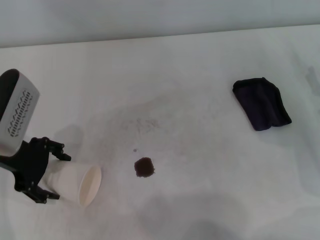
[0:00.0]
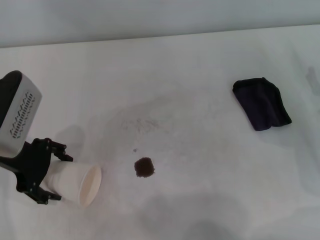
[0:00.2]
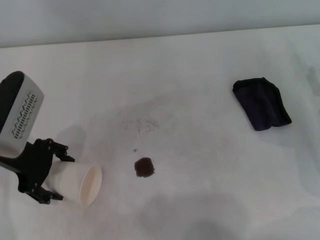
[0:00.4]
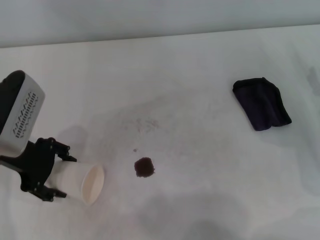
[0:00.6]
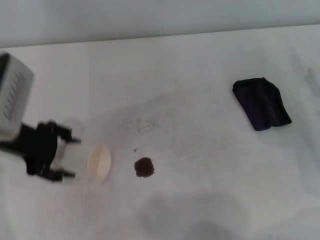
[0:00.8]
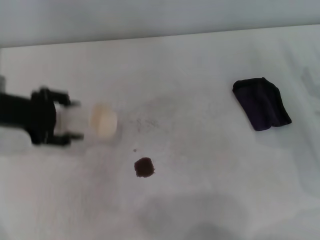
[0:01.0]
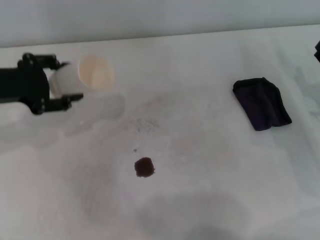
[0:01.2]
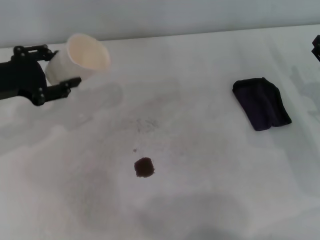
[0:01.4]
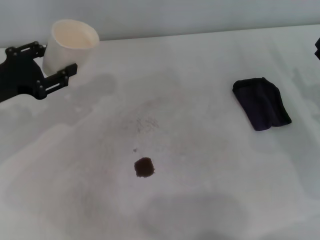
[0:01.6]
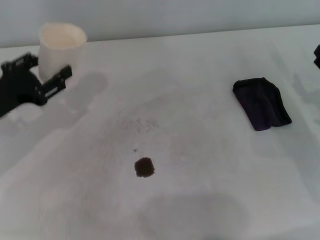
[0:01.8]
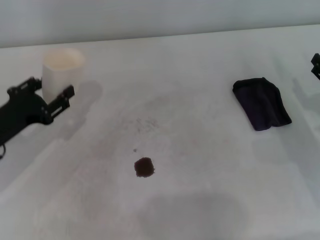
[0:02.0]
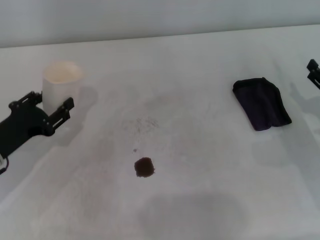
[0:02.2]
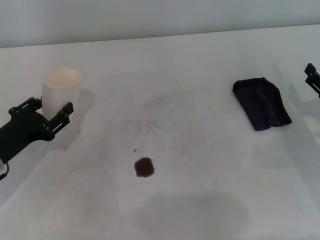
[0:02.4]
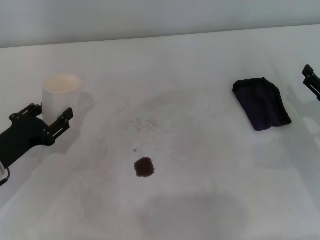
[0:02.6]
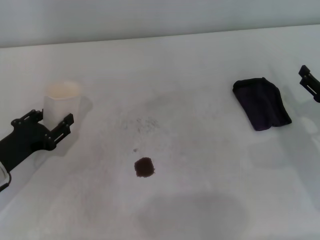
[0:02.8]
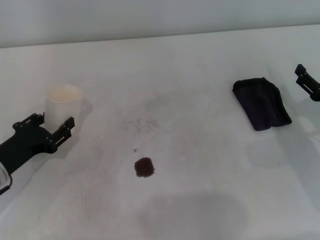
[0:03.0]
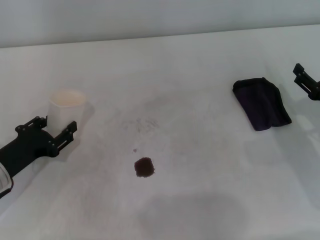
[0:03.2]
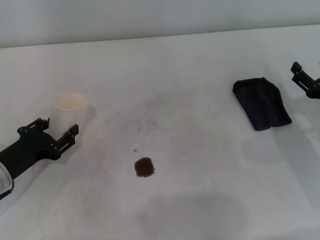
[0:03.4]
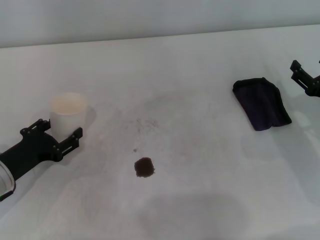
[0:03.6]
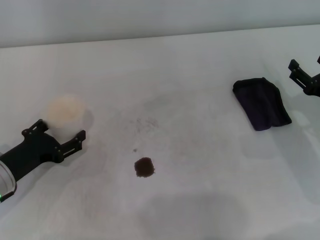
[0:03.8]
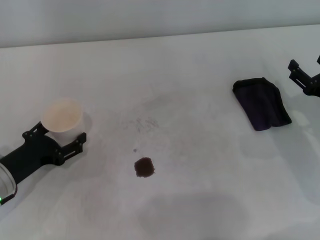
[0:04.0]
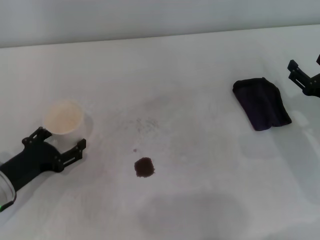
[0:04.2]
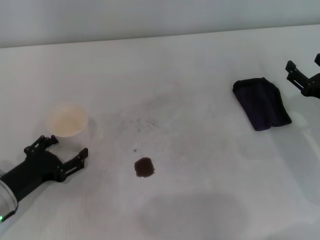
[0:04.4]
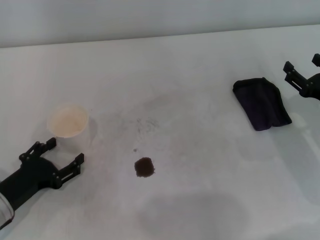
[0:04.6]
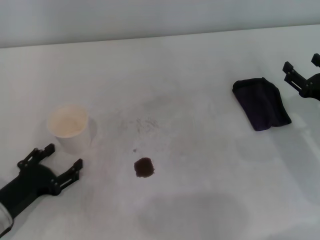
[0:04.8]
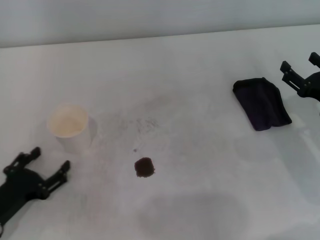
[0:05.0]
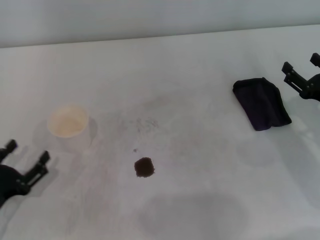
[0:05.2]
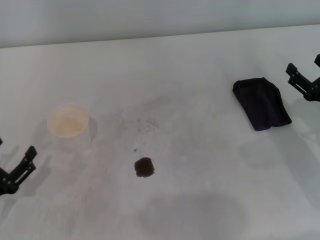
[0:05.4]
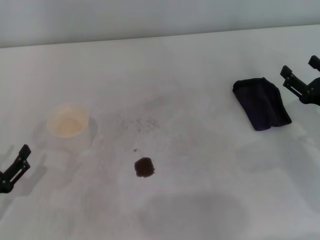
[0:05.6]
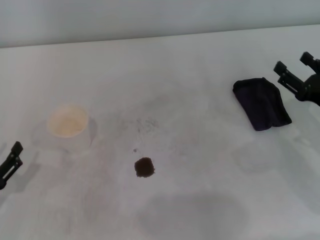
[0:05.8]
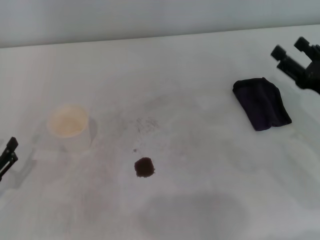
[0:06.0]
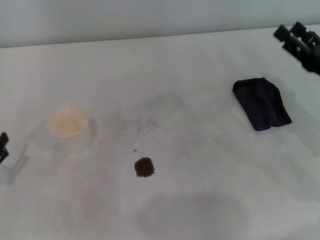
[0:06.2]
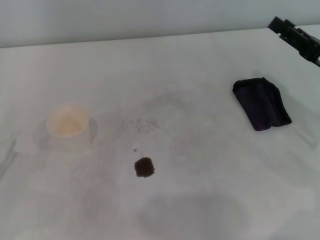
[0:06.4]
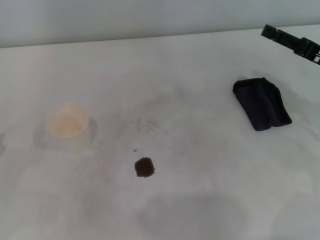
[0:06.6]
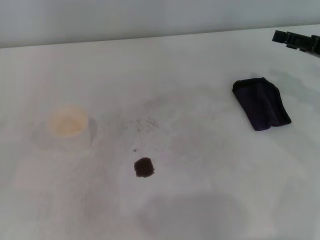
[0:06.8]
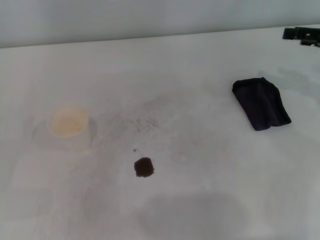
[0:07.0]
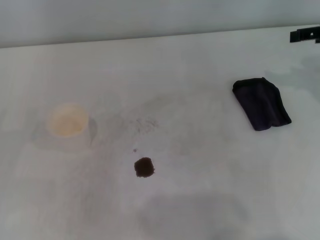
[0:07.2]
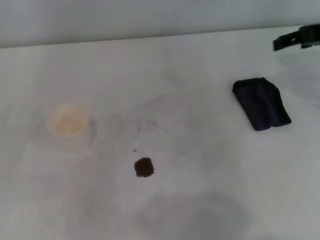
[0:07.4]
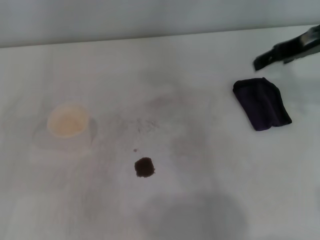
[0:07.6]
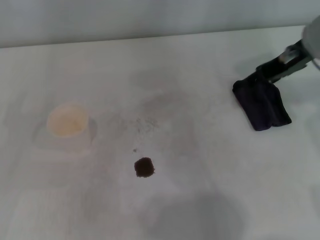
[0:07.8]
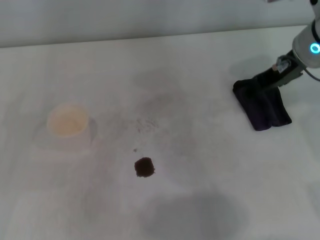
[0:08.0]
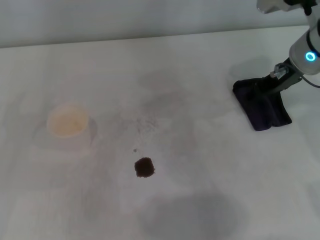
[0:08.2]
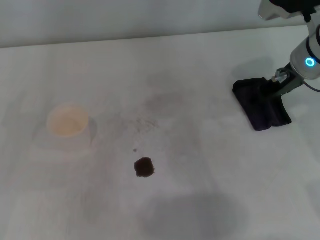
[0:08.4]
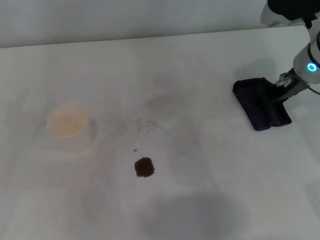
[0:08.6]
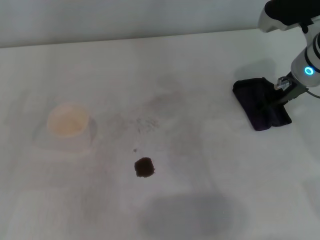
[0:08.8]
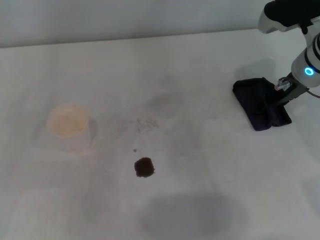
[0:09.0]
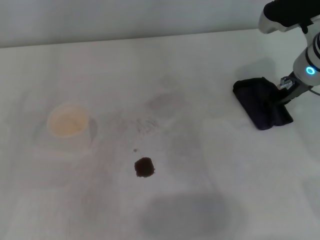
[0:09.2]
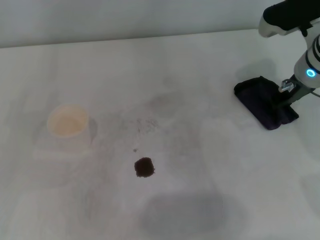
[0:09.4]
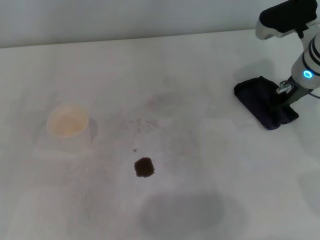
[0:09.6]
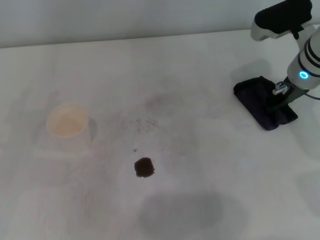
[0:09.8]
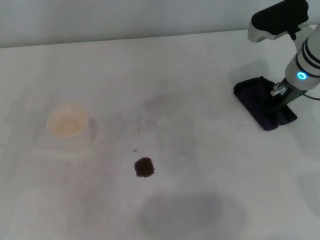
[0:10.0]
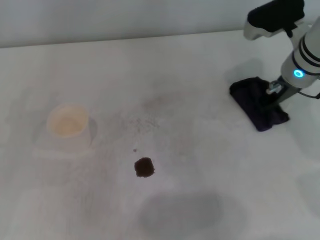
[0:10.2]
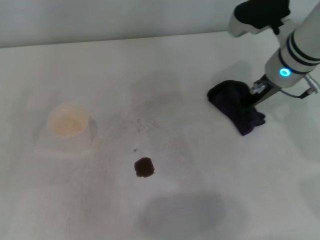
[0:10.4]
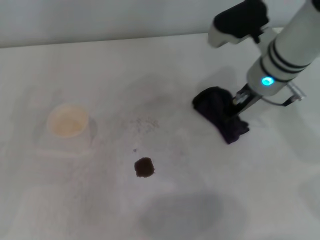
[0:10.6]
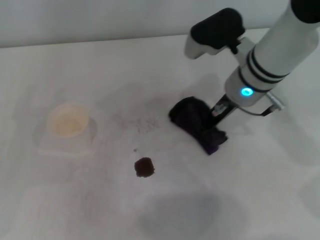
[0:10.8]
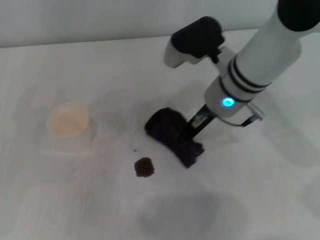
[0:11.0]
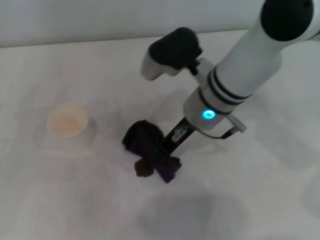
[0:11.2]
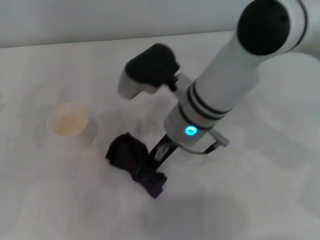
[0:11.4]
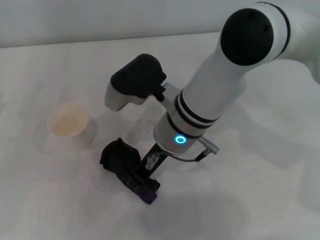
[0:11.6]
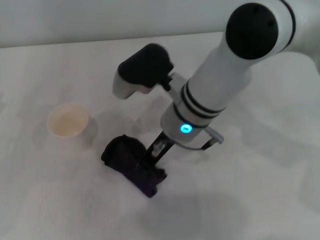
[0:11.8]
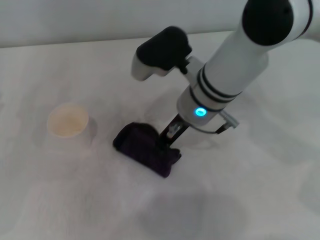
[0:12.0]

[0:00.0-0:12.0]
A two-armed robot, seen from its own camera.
Step, 0:00.6 to 0:04.0: Stand the paper cup upright with the left gripper.
Step, 0:04.2 to 0:10.0: Grasp the rag with the right gripper.
0:00.0 to 0:01.6: The left gripper closes.
0:01.6 to 0:03.0: The left gripper travels downward and backward by some 10 cm.
0:03.0 to 0:04.4: The left gripper opens up.
0:04.4 to 0:06.0: The left gripper shifts some 10 cm backward and to the left.
0:06.0 to 0:07.6: The right gripper moves upward and forward, about 20 cm.
0:07.6 to 0:09.0: The right gripper heads downward, covering approximately 10 cm.
0:09.0 to 0:10.4: The right gripper closes its fingers.
0:10.4 to 0:12.0: The right gripper travels to the left by approximately 15 cm.

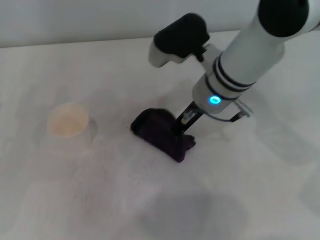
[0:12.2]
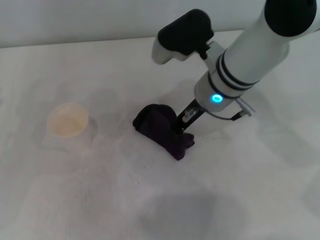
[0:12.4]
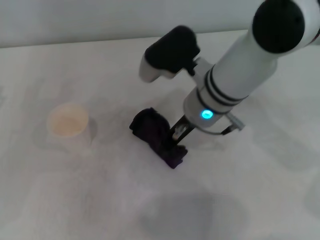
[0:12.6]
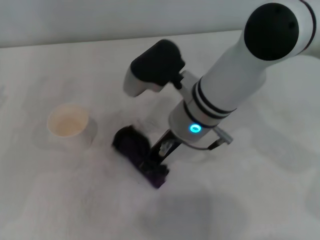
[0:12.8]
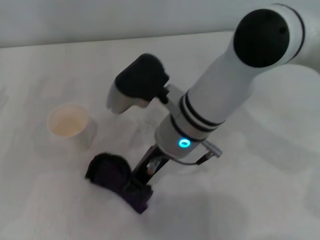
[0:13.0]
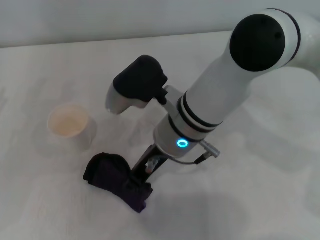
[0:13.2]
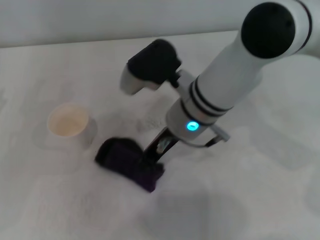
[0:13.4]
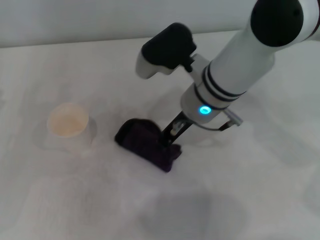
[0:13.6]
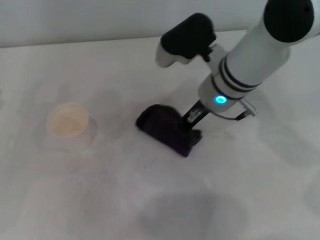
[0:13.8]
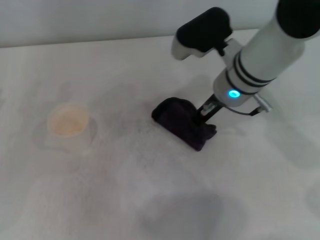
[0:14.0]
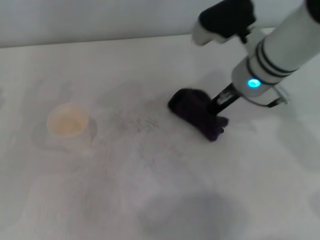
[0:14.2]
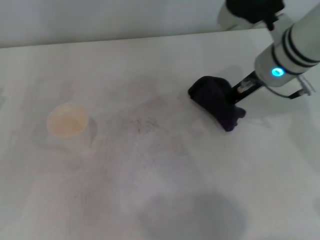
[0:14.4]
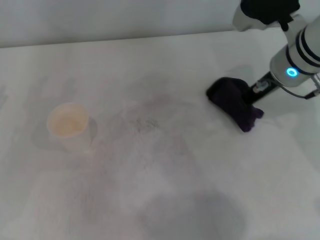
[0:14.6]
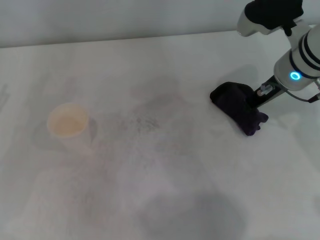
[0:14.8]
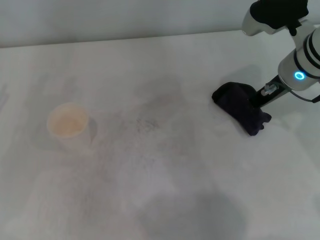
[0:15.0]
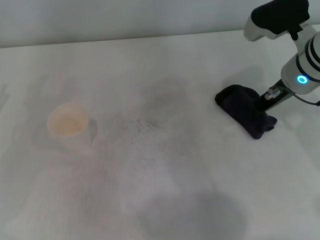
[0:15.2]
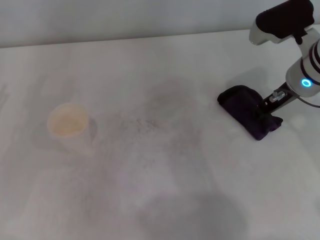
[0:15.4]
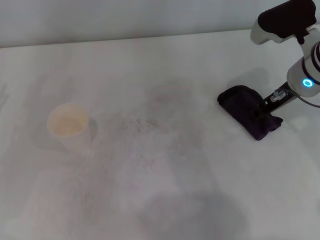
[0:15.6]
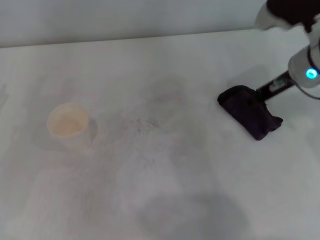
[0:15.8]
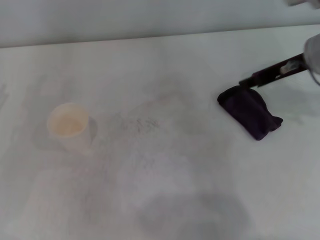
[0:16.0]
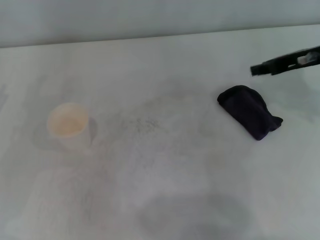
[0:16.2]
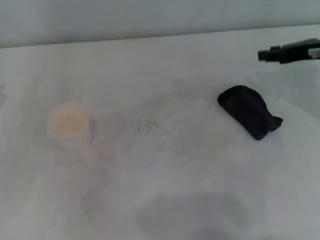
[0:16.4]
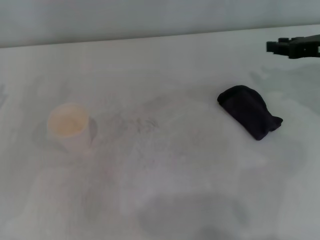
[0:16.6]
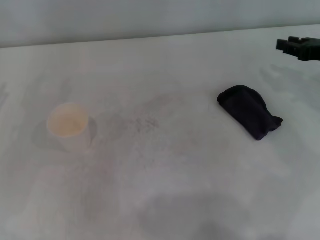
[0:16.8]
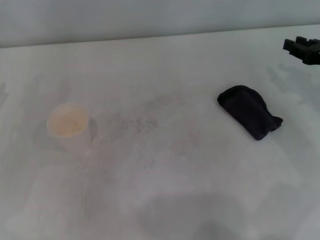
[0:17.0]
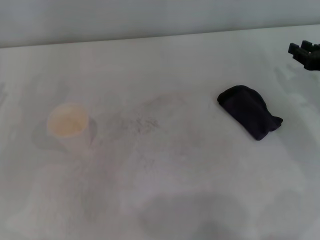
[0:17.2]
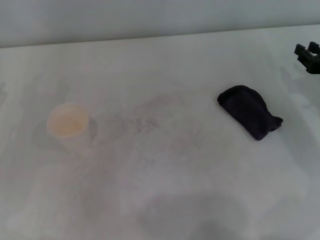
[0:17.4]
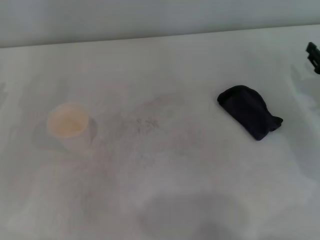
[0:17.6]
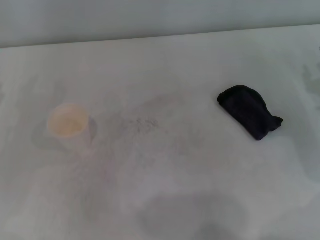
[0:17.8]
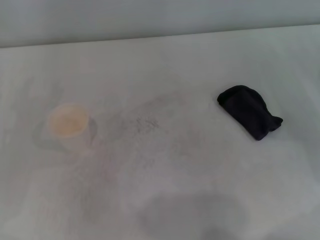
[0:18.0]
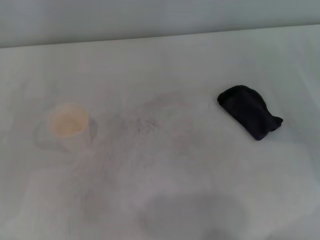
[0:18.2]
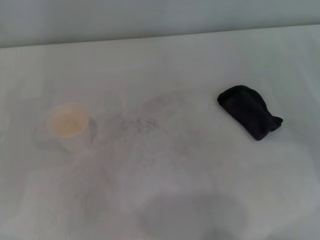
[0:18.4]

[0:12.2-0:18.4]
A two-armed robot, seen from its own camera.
Step, 0:12.2 to 0:14.6: Wipe the stains off the table with the right gripper.
Step, 0:14.8 to 0:15.4: Place the rag on the table with the right gripper.
0:13.8 to 0:15.4: The right gripper moves to the right, approximately 10 cm.
0:15.4 to 0:16.8: The right gripper goes roughly 10 cm to the right.
0:16.8 to 0:18.4: The right gripper moves downward and backward, about 10 cm.
